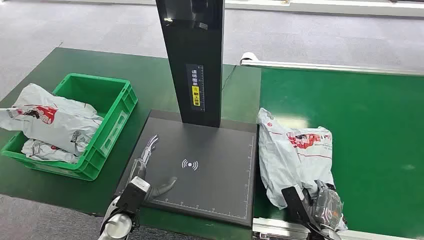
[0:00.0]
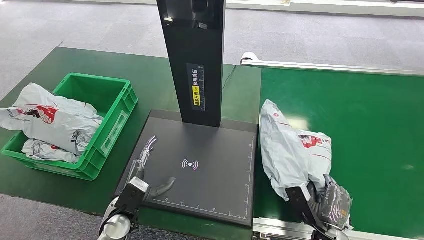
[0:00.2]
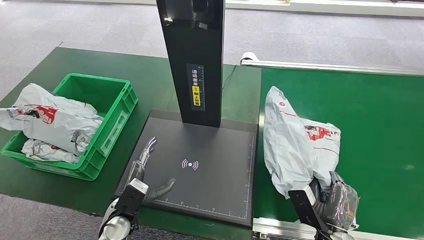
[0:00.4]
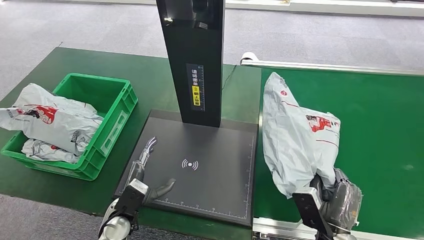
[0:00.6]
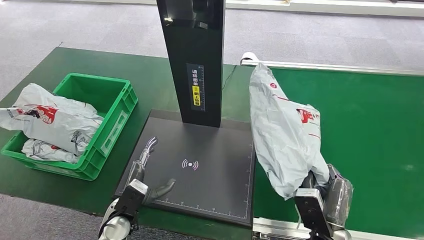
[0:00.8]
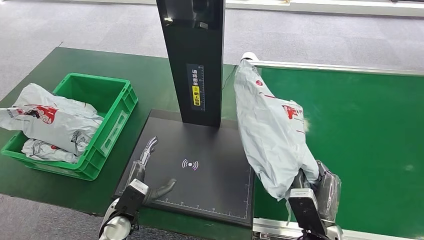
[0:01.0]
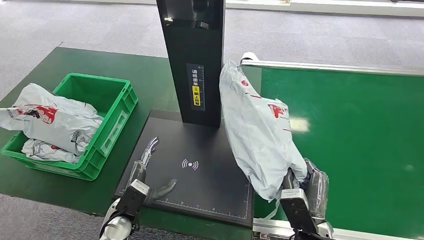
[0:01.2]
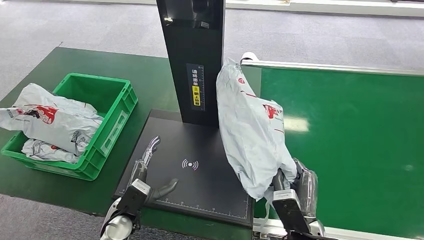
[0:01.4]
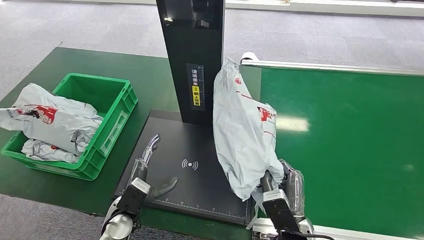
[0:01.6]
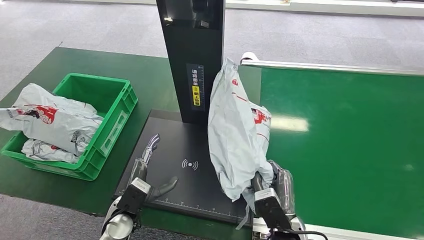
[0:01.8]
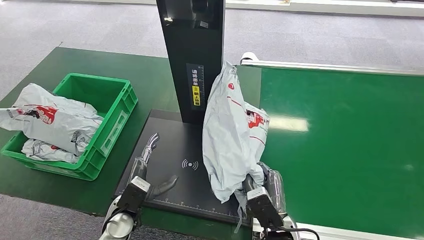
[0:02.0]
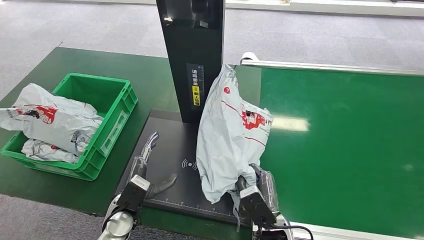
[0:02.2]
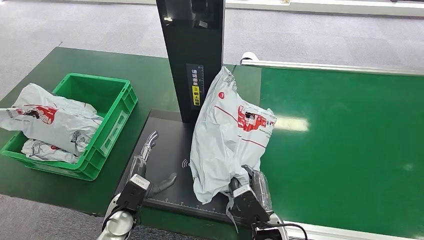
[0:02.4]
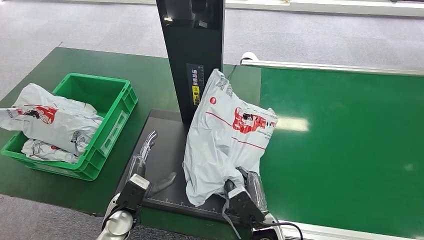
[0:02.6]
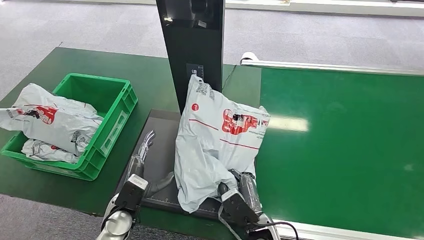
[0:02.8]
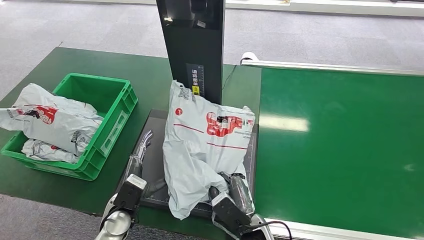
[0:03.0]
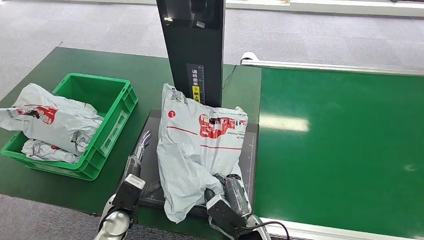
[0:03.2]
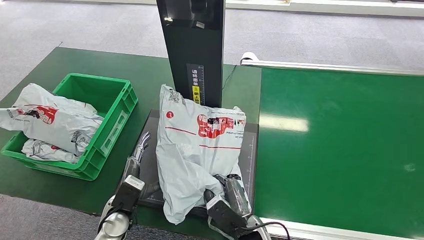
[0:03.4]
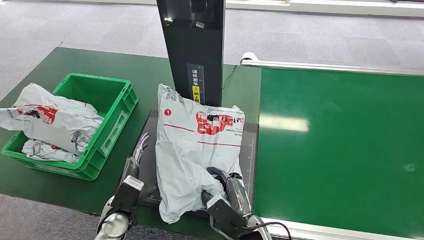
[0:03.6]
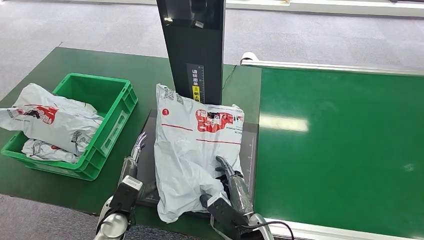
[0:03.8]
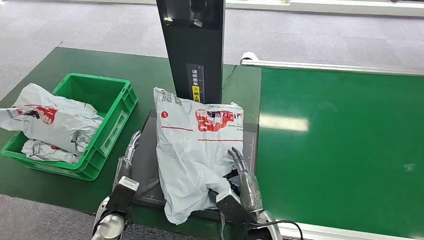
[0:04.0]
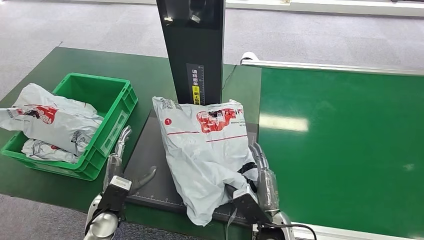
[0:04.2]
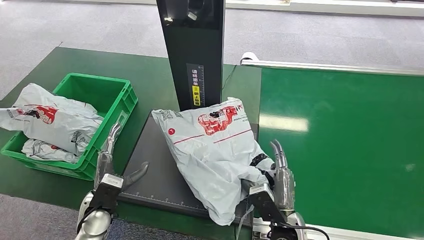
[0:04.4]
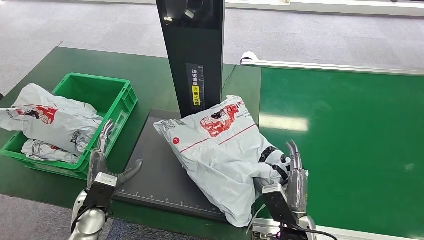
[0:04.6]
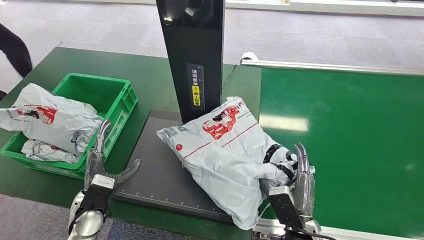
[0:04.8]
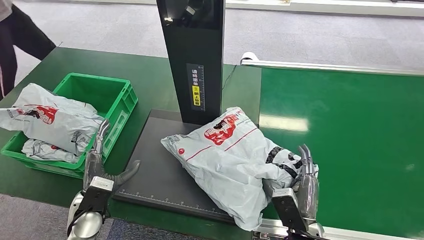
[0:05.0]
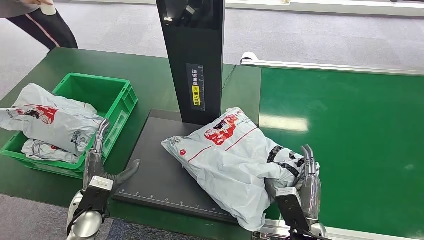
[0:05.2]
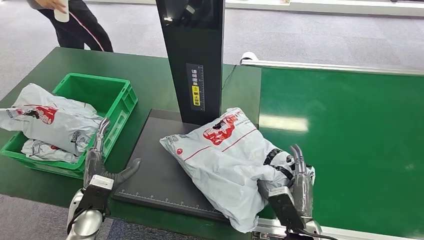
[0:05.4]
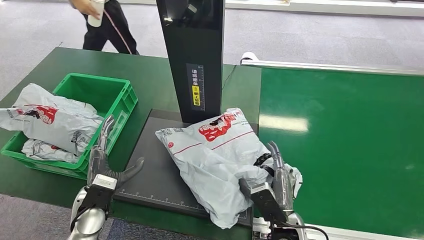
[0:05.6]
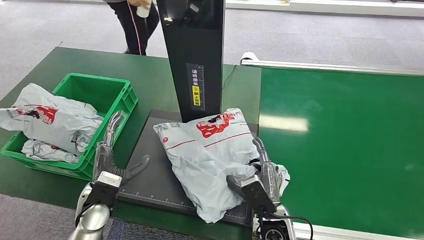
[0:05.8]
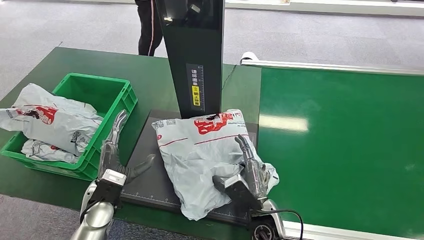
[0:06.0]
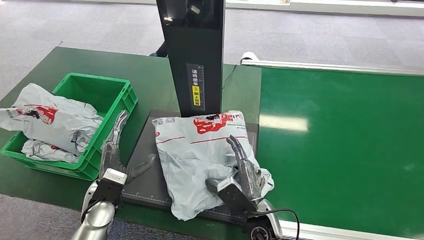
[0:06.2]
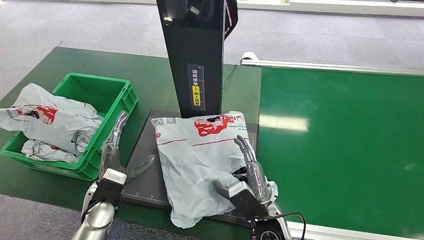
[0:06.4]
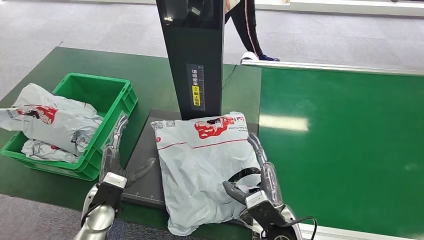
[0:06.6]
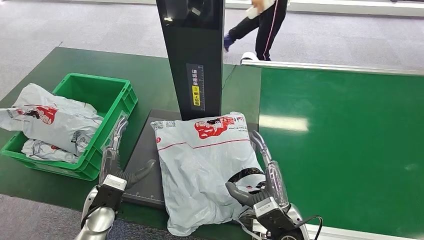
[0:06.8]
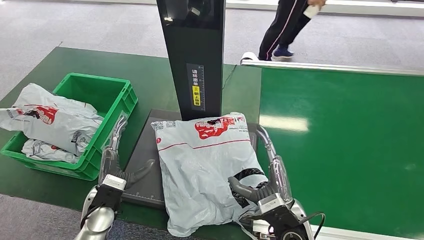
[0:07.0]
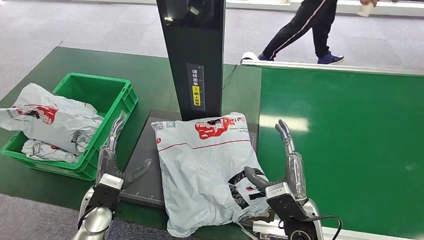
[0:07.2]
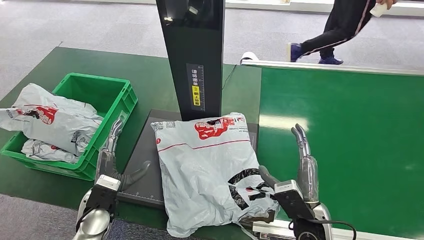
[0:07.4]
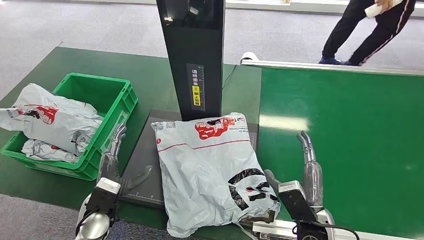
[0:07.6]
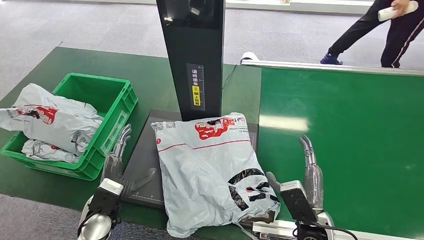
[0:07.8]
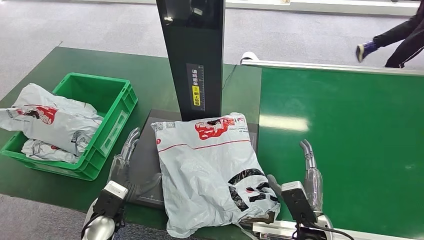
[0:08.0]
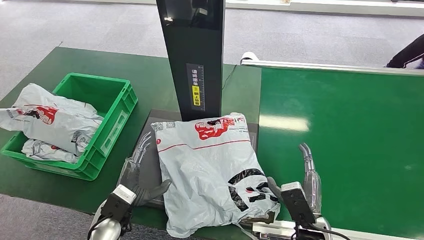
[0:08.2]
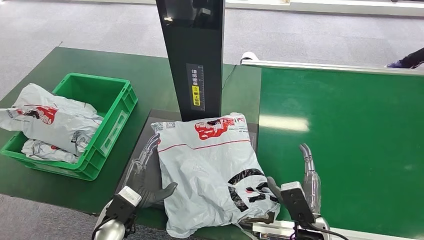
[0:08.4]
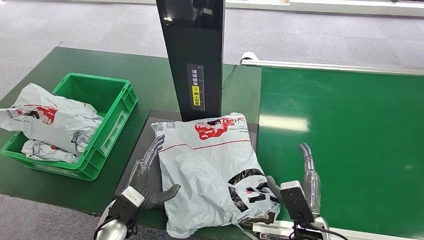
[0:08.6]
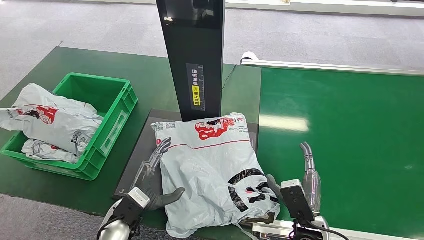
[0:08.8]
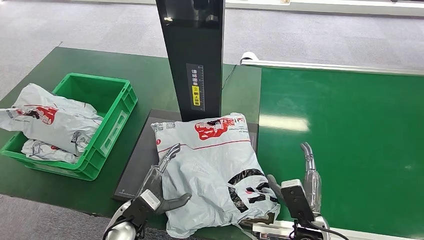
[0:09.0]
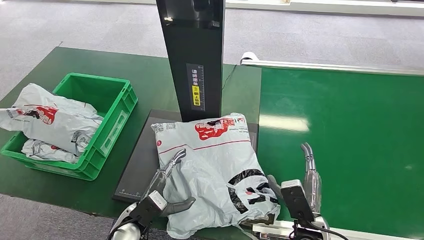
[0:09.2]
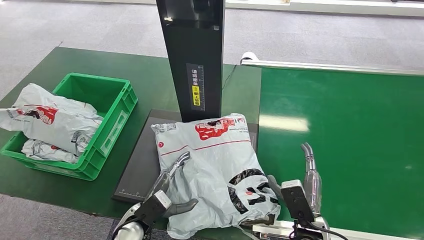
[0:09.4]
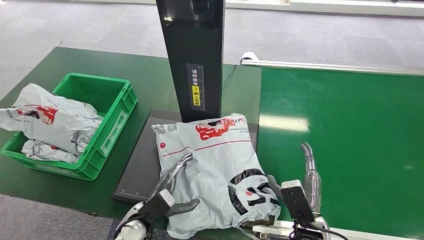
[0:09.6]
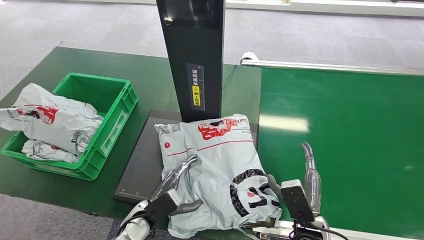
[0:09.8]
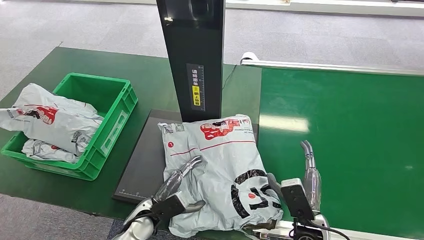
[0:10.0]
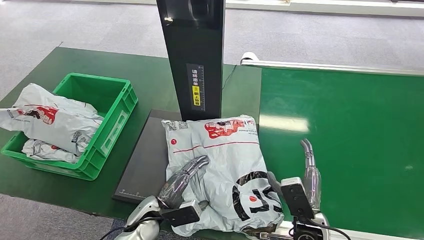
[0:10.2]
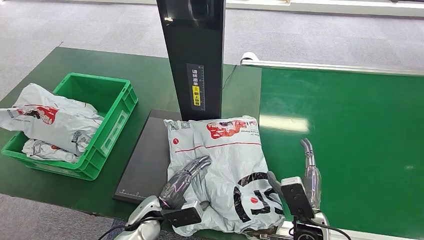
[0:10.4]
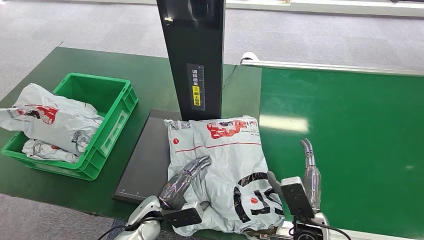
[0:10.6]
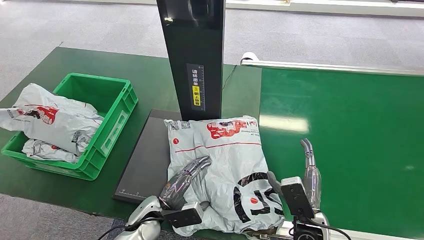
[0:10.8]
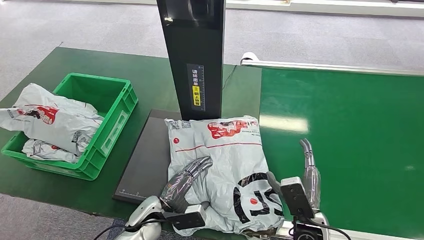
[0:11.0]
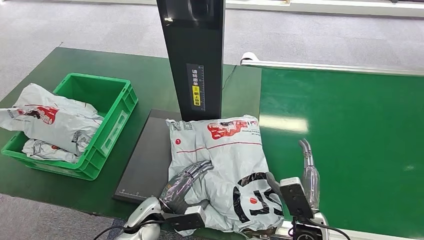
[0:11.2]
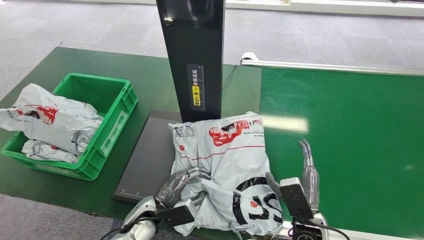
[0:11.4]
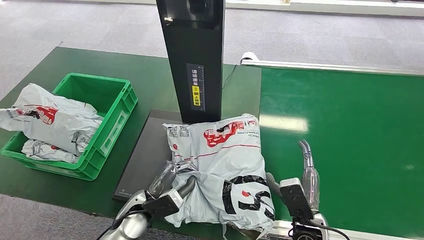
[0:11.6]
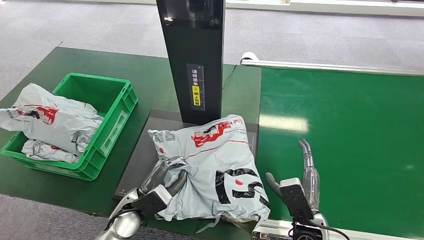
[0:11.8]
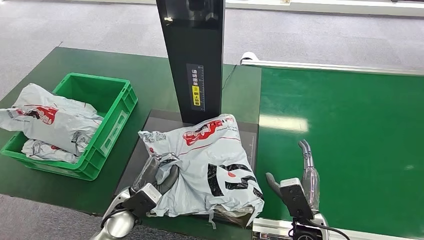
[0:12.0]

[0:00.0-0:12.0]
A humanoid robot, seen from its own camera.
Step, 0:00.0 to 0:00.4: Pick up the package from the conveyor belt.
Step, 0:00.8 to 0:07.8: Place the package onto the inbound machine.
0:01.6 to 0:03.0: The right hand heads to the left and downward, covering some 10 cm.
0:03.0 to 0:04.4: The left hand heads to the left, covering roughly 5 cm. Meanwhile the right hand shifts roughly 5 cm to the right.
0:04.4 to 0:06.0: The right hand changes place by approximately 5 cm.
0:06.0 to 0:07.6: The right hand shifts about 10 cm to the right.
0:07.6 to 0:09.0: The left hand moves to the right, approximately 5 cm.
0:09.0 to 0:10.4: The left hand shifts by roughly 5 cm.
0:10.4 to 0:12.0: The left hand is displaced upward and to the left by some 5 cm.

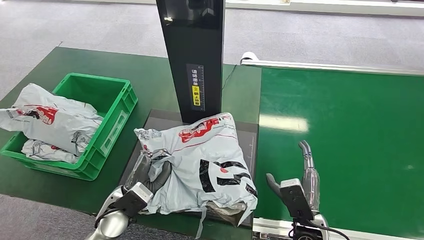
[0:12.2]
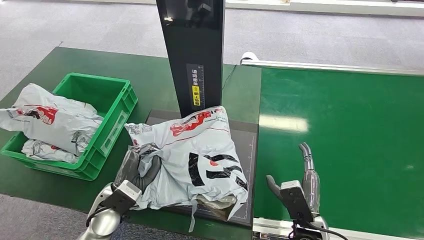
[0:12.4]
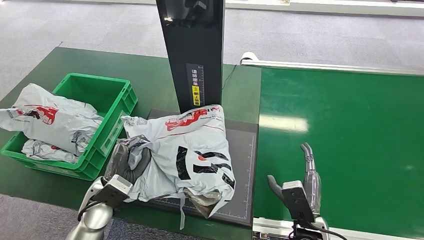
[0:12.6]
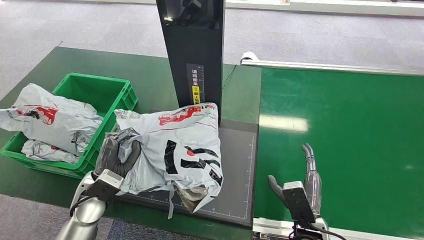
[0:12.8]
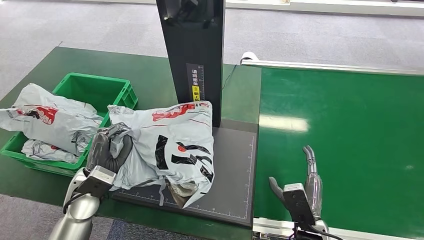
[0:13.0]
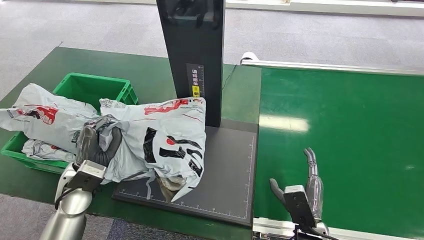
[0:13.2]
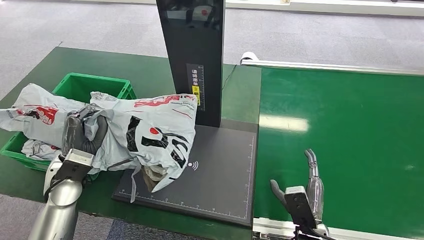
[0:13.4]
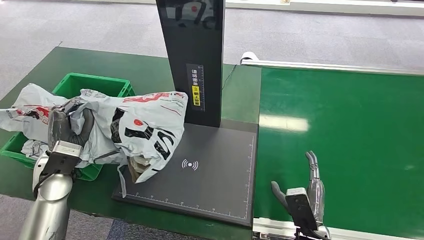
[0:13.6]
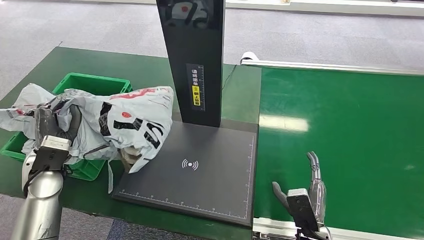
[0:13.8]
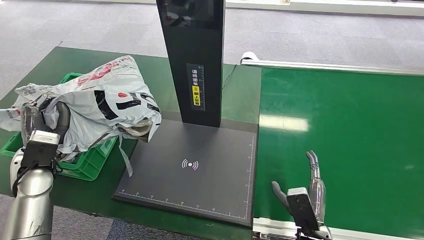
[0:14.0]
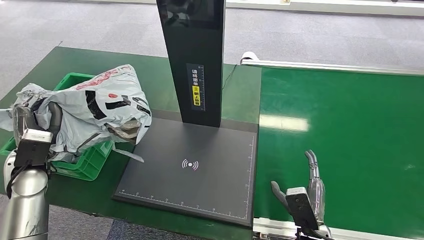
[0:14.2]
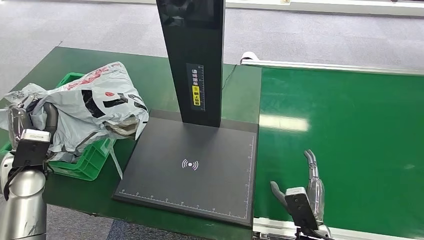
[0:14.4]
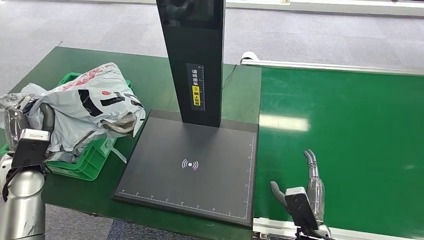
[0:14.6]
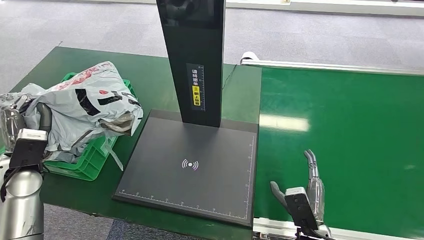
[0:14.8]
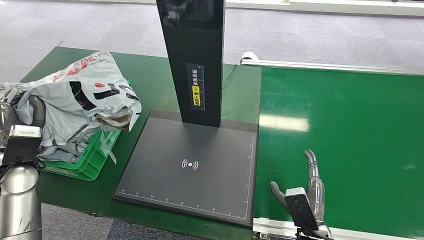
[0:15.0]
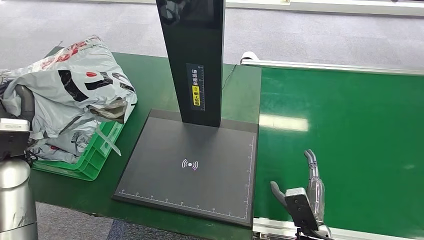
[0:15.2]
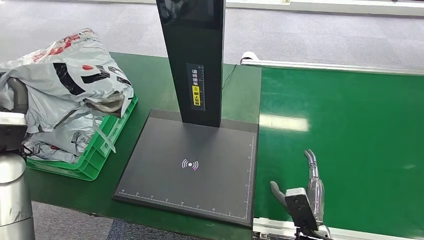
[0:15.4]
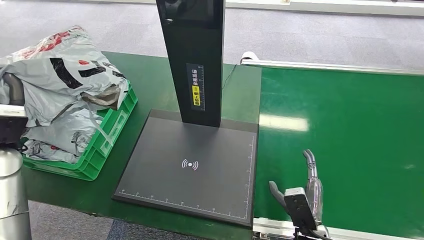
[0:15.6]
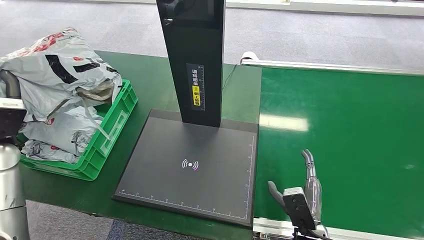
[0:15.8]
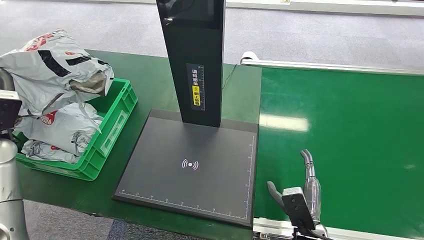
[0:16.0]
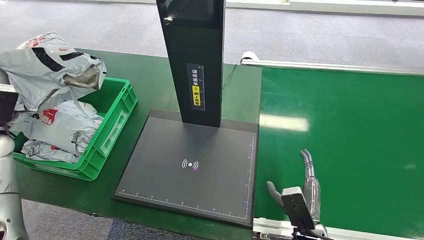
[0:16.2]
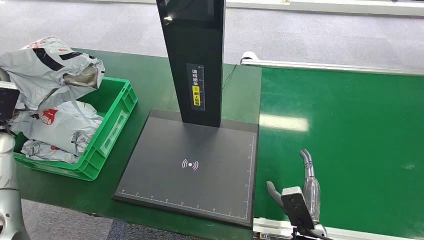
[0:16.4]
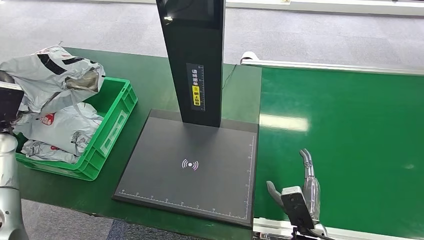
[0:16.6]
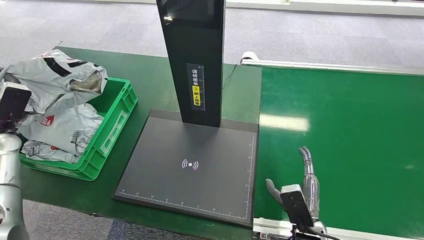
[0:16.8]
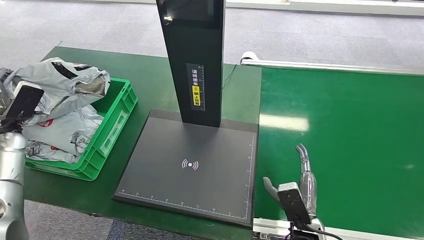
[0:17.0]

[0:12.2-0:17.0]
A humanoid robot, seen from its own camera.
0:15.4 to 0:17.0: The left hand moves forward and to the left, about 10 cm.
